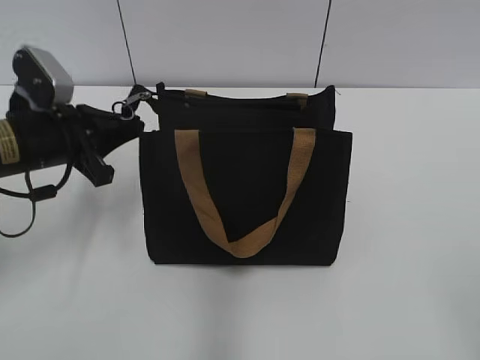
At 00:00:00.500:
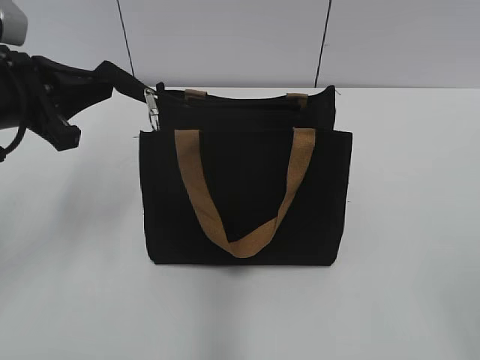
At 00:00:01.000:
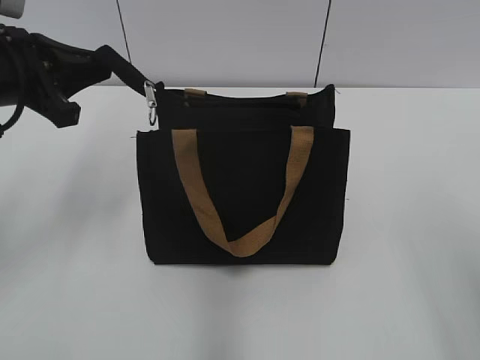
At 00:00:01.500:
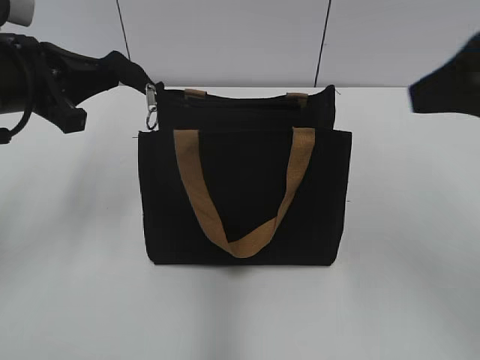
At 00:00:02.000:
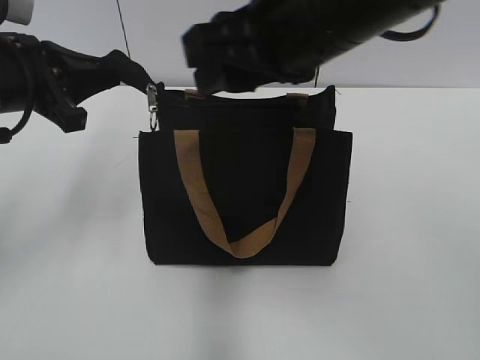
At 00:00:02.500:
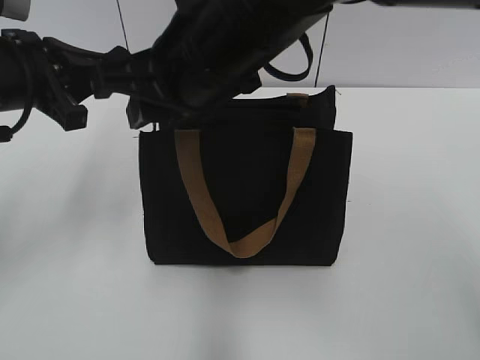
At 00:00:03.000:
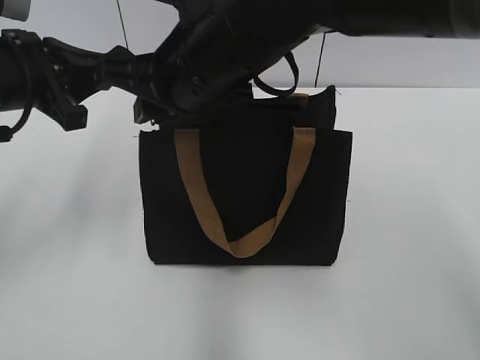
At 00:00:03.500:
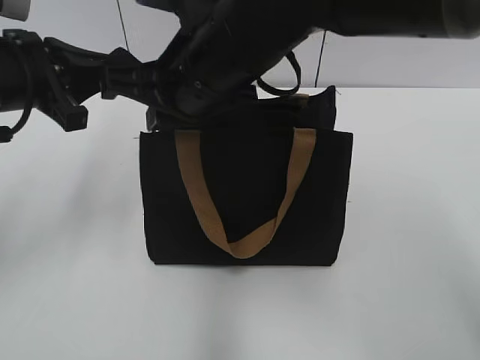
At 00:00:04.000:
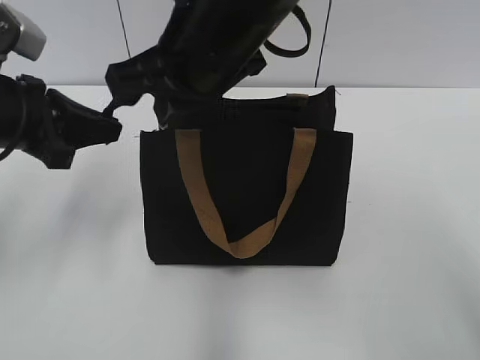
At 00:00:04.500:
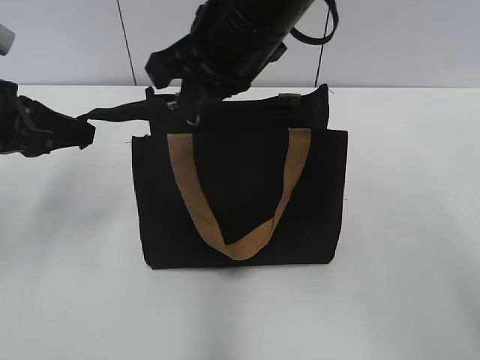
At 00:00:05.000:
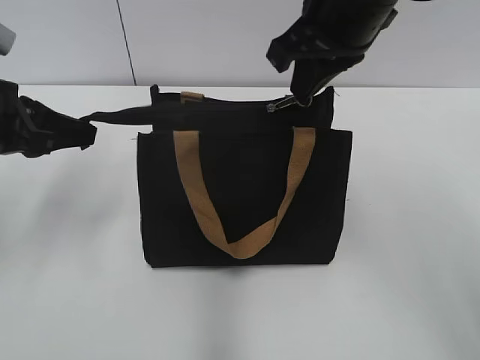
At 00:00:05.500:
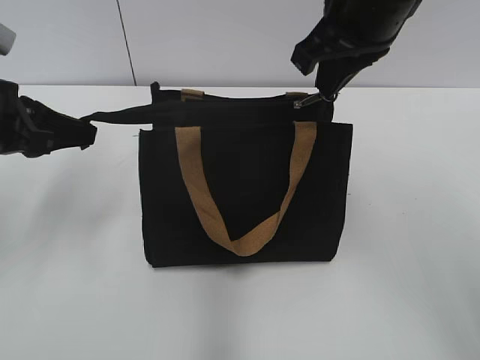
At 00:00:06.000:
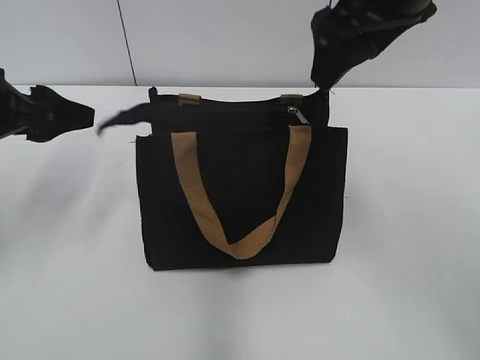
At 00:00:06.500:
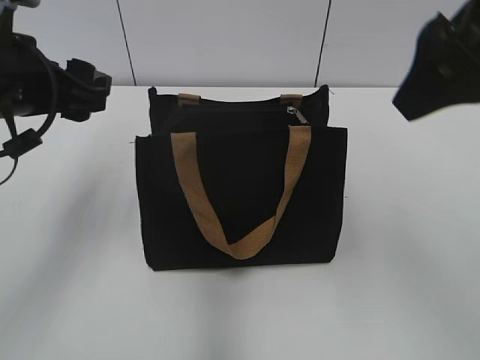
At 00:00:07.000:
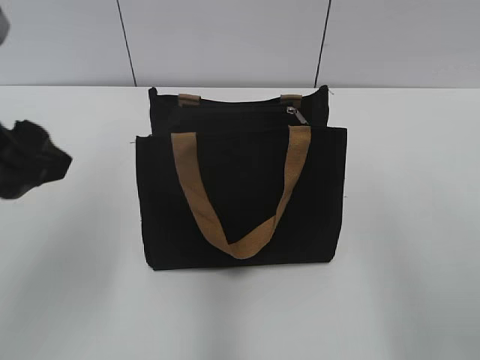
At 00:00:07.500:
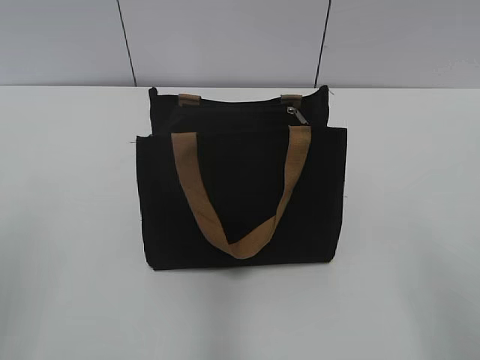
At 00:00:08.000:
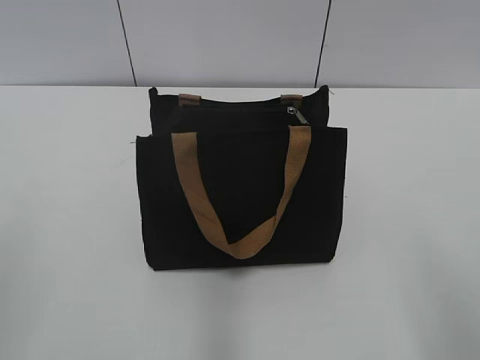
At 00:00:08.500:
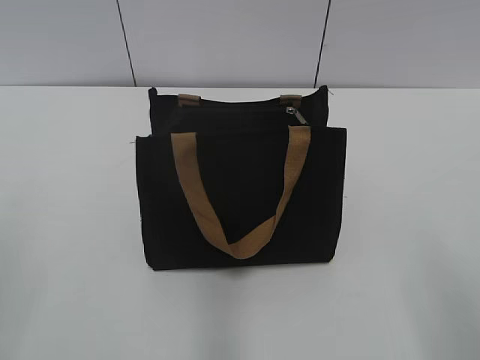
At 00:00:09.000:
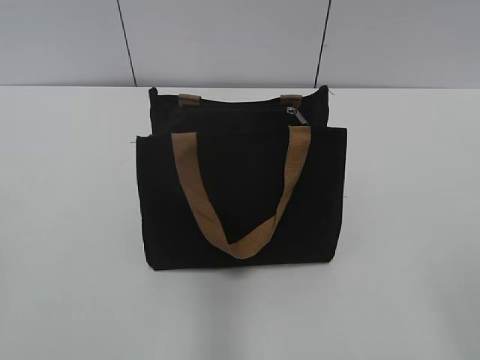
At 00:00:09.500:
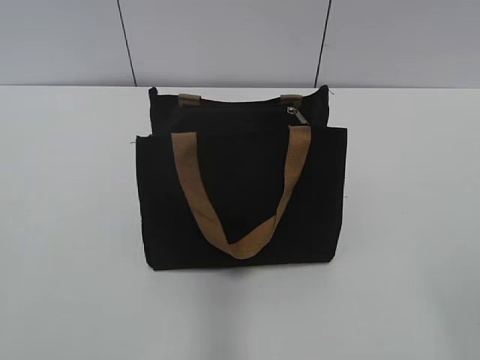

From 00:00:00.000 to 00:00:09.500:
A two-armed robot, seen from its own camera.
Step, from 00:00:00.000 to 00:00:05.500: Zip up the bag with your right hand.
From 00:00:00.000 to 00:00:02.000: The left gripper heads upward, covering roughly 10 cm; the right gripper travels forward and to the left by some 35 cm, and closes up.
From 00:00:02.000 to 00:00:04.000: The right gripper is displaced to the left by some 5 cm, and closes.
From 00:00:04.000 to 00:00:05.500: The right gripper travels to the right by some 10 cm.
From 00:00:05.500 to 00:00:07.500: The left gripper travels backward by approximately 20 cm, and opens its fingers, while the right gripper heads backward and to the right, covering approximately 30 cm, and opens.

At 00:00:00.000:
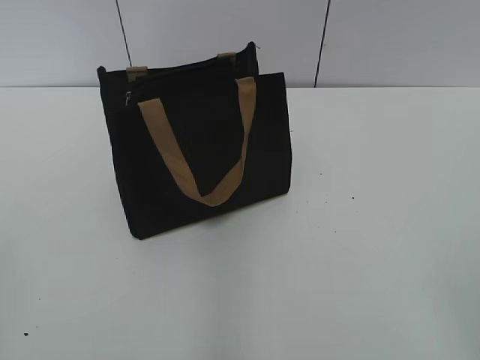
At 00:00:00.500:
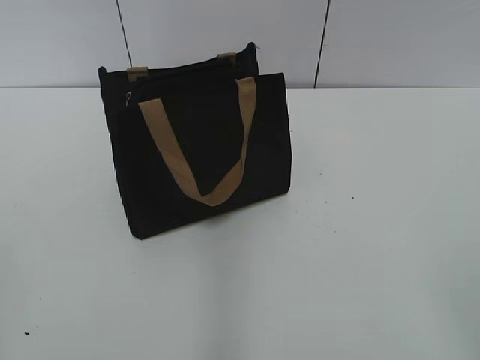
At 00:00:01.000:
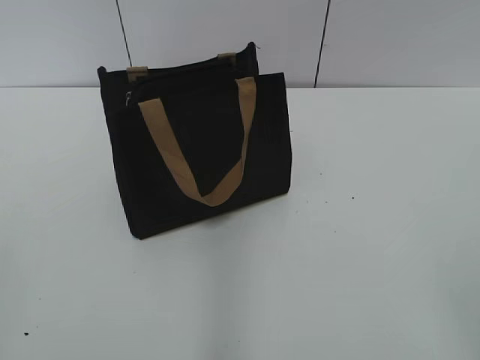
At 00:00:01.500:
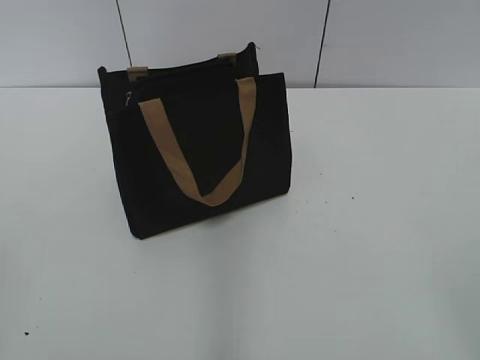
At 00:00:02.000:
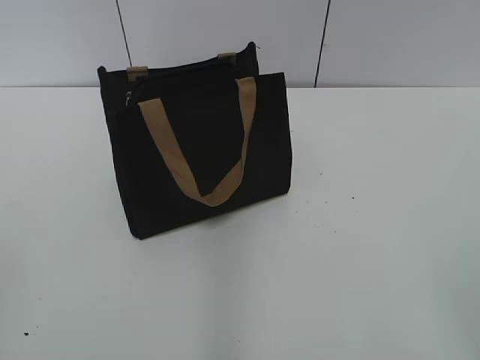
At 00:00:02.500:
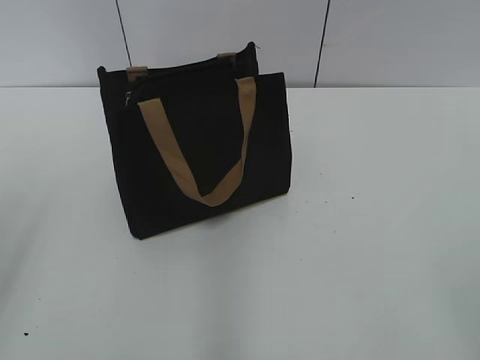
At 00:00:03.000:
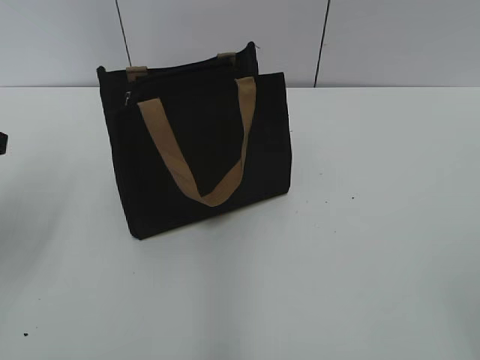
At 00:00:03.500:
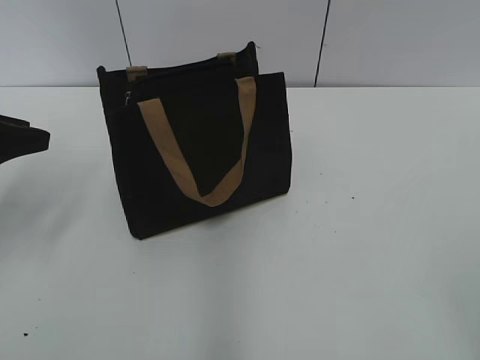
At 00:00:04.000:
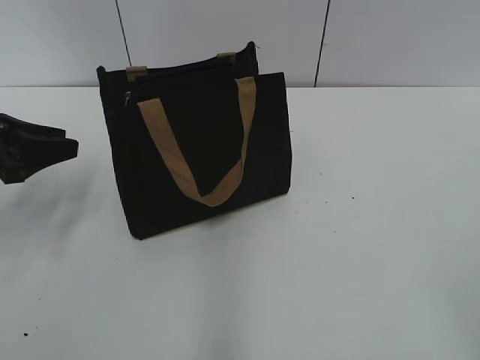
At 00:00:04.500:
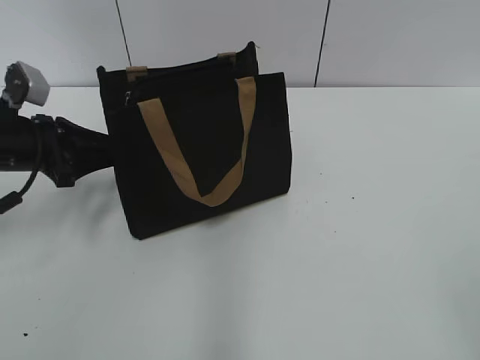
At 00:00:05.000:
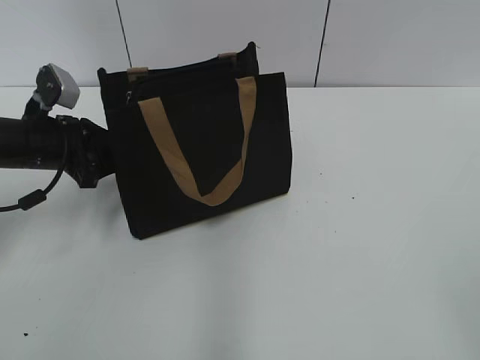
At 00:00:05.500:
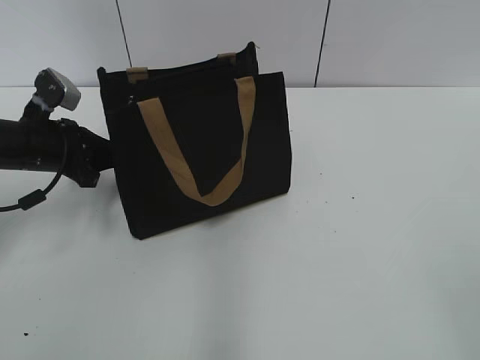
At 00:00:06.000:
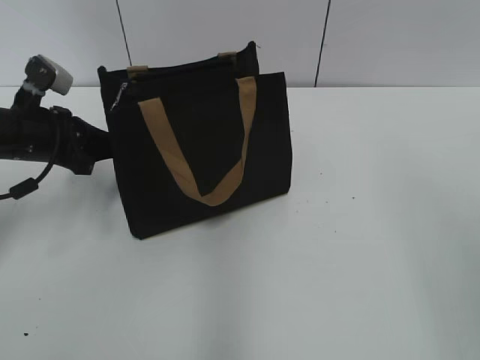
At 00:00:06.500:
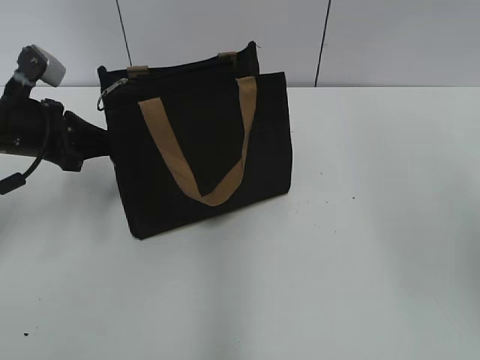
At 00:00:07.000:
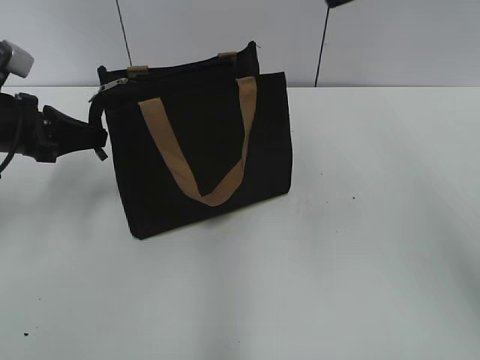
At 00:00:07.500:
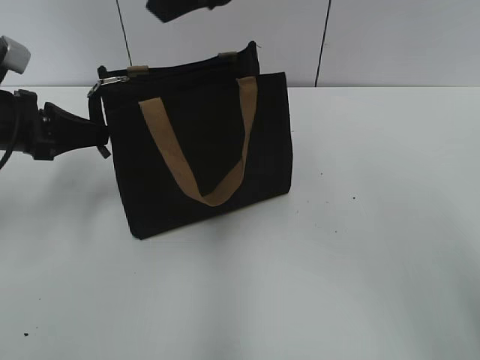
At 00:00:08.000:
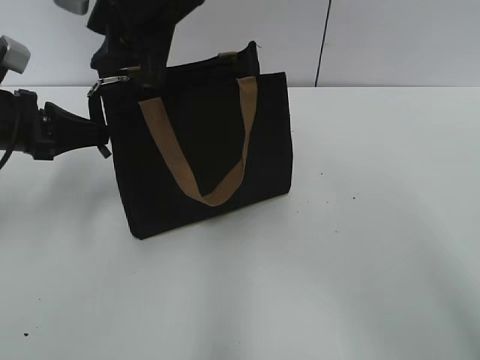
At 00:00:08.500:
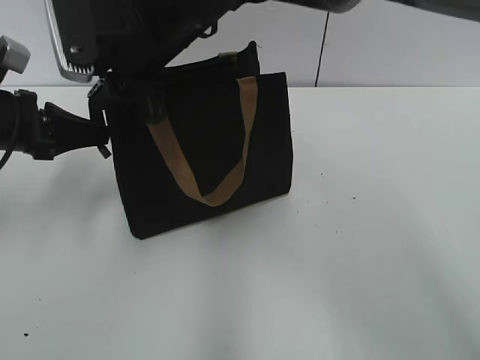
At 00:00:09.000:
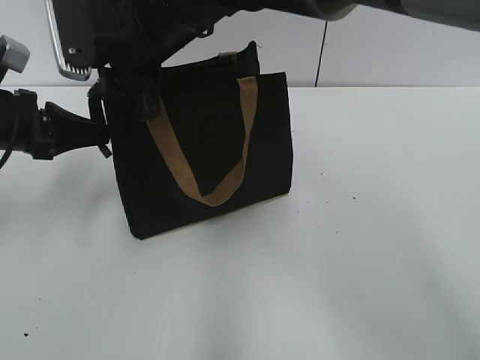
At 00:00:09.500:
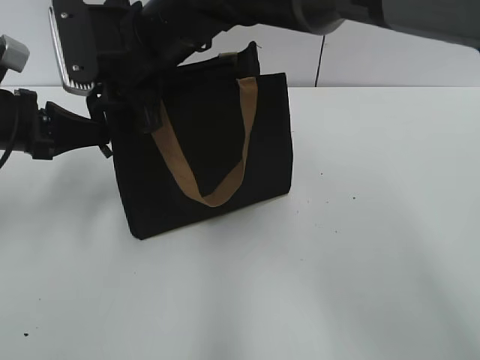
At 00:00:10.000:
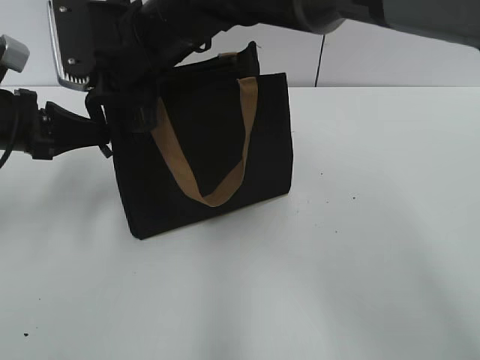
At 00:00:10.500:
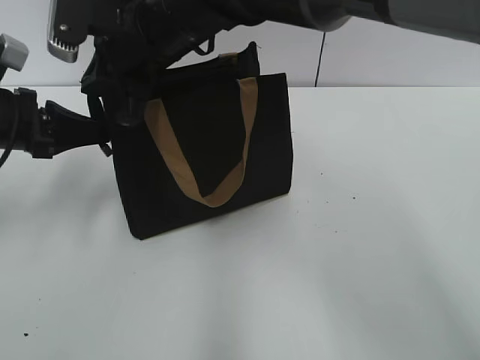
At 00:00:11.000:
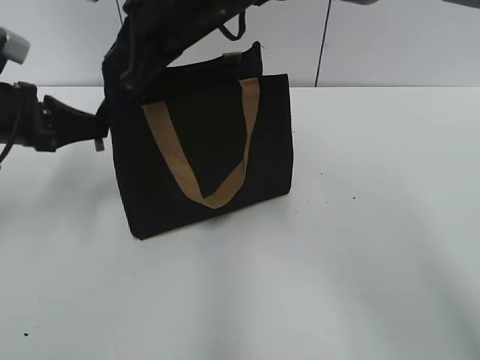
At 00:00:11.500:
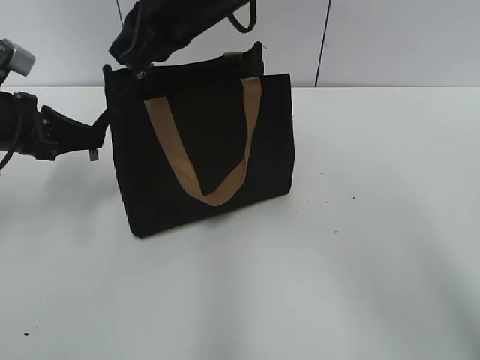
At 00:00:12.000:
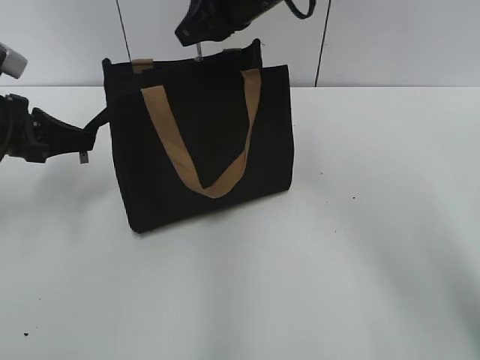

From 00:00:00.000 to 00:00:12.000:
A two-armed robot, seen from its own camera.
From 00:00:02.000 to 00:00:04.000: The left gripper travels forward by roughly 30 cm.
From 00:00:04.000 to 00:00:06.000: The left gripper heads to the right, covering about 5 cm, and closes.
From 00:00:06.000 to 00:00:08.000: The right gripper travels to the left and forward by roughly 40 cm.
From 00:00:08.000 to 00:00:10.000: The right gripper travels downward by about 5 cm, and closes up.
From 00:00:10.000 to 00:00:12.000: The right gripper moves to the right and forward, approximately 10 cm.

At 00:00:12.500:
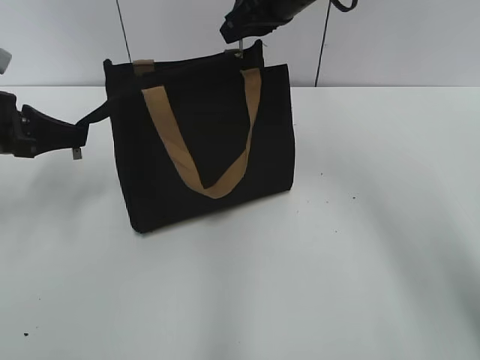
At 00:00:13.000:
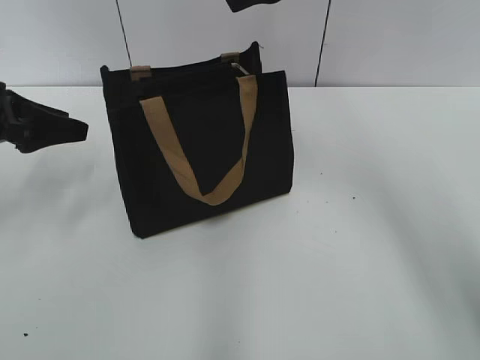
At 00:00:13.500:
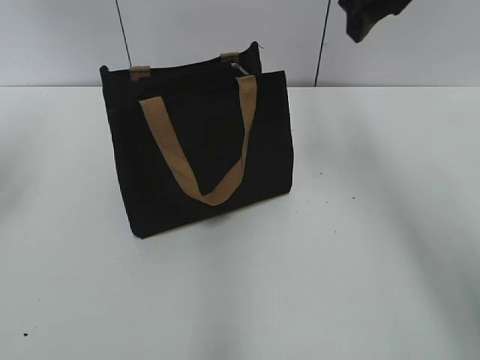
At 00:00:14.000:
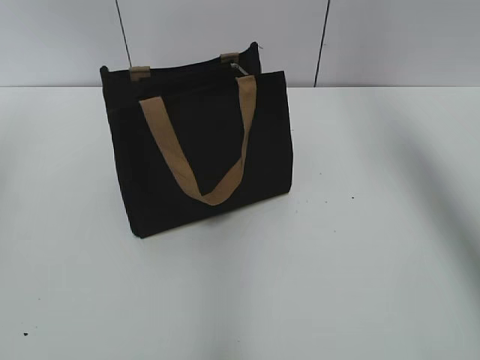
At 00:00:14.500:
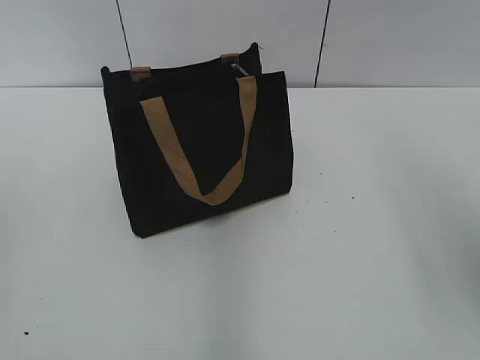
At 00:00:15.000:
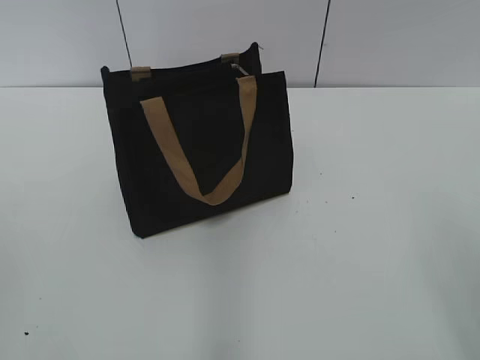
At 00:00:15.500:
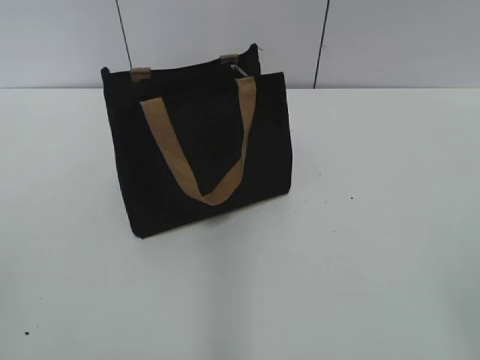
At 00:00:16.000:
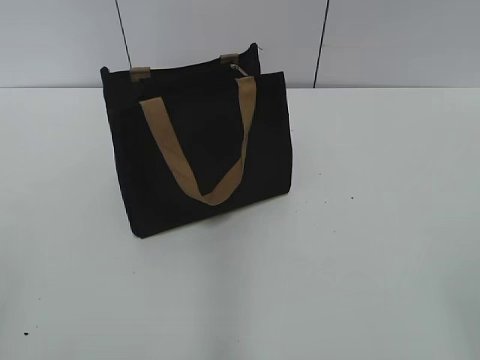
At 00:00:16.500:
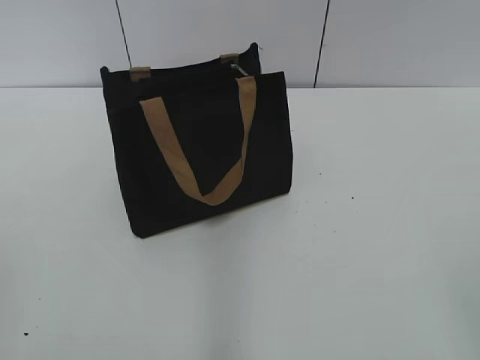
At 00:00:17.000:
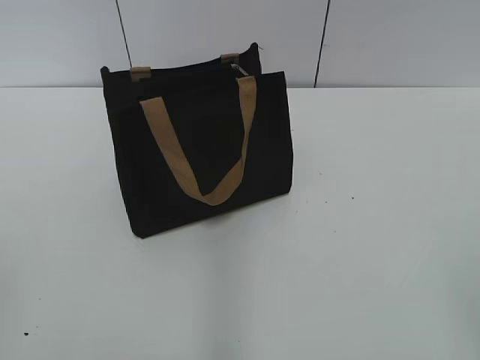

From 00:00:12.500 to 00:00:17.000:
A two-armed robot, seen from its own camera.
From 00:00:12.500 to 00:00:14.500: The left gripper travels backward and upward by about 25 cm, and opens its fingers. The right gripper heads backward and to the right, covering approximately 30 cm, and opens.
From 00:00:14.500 to 00:00:17.000: The right gripper moves backward and downward, approximately 20 cm.
